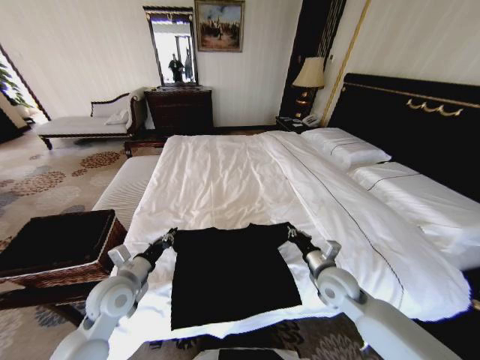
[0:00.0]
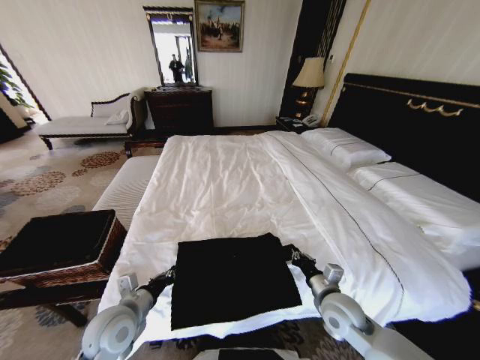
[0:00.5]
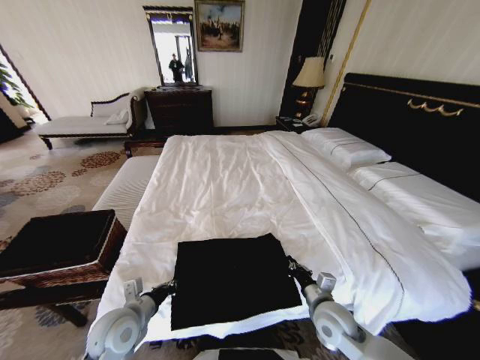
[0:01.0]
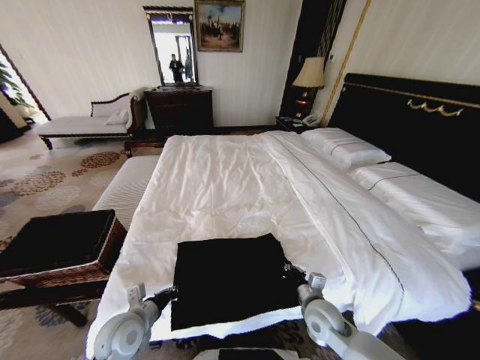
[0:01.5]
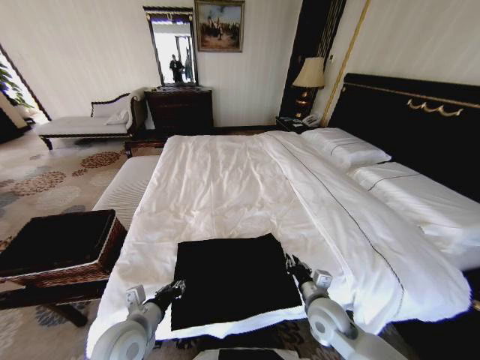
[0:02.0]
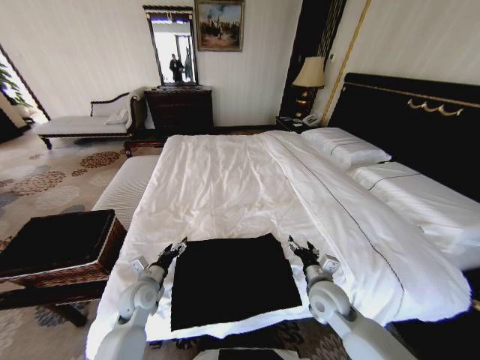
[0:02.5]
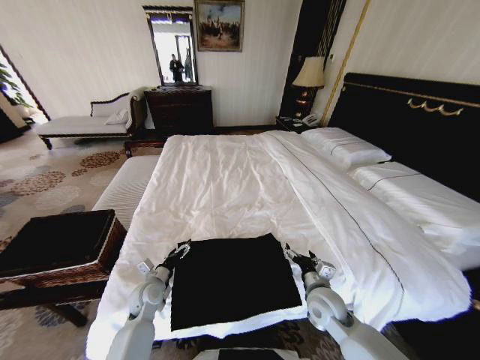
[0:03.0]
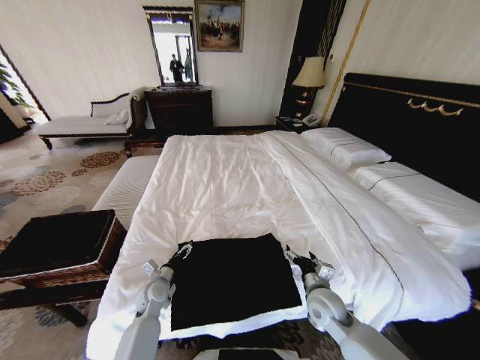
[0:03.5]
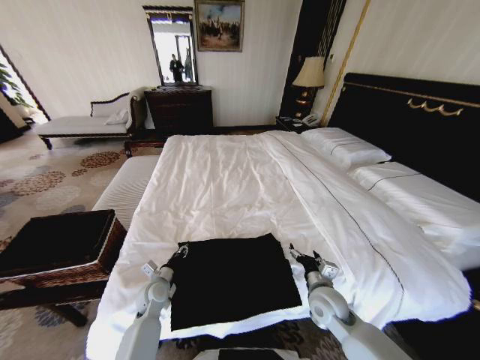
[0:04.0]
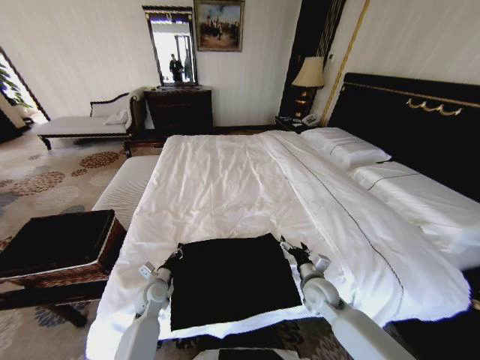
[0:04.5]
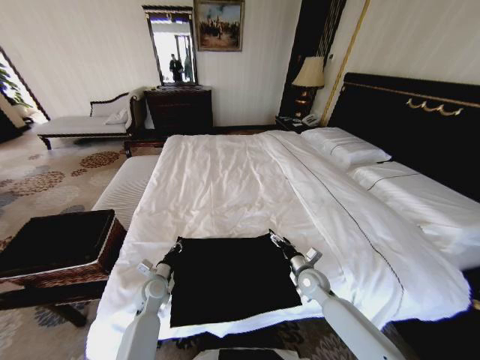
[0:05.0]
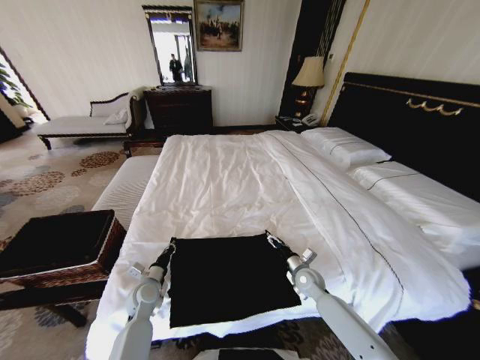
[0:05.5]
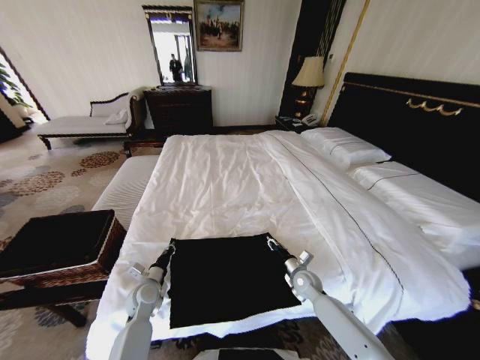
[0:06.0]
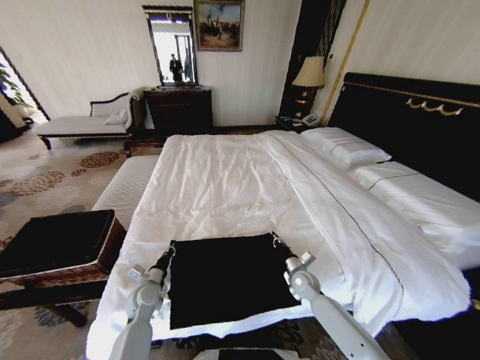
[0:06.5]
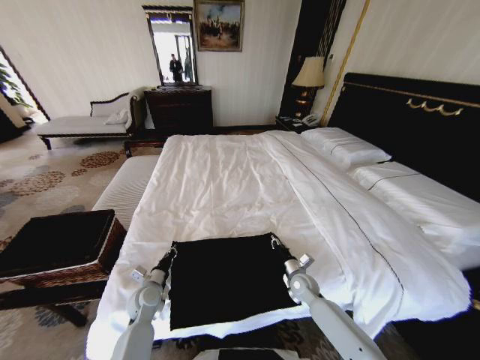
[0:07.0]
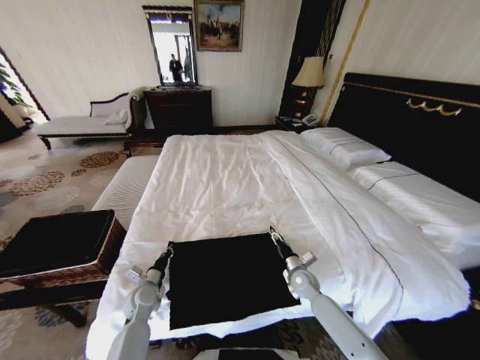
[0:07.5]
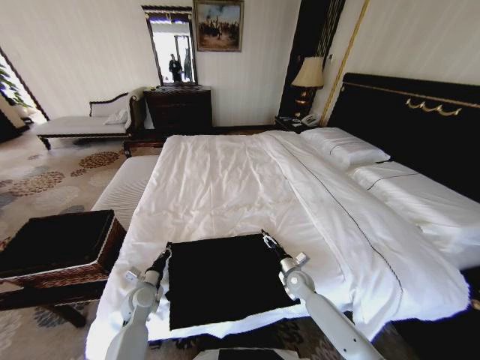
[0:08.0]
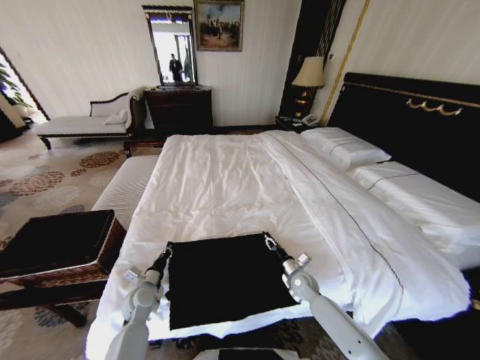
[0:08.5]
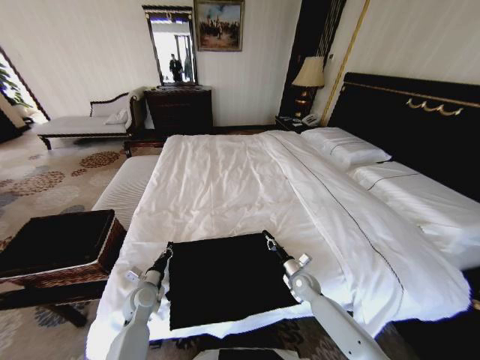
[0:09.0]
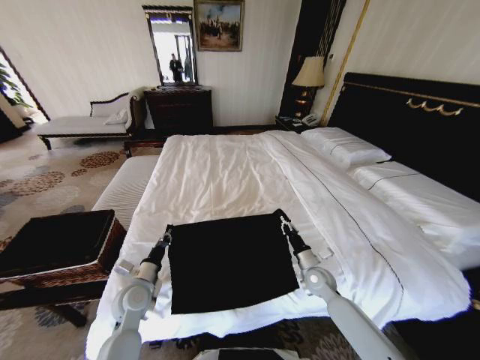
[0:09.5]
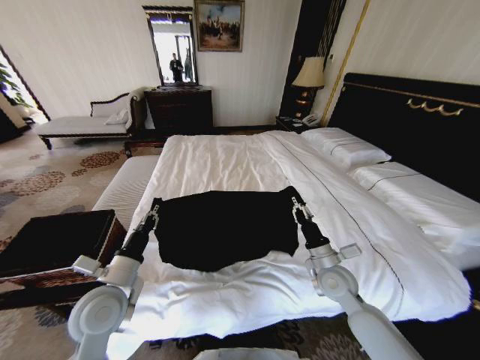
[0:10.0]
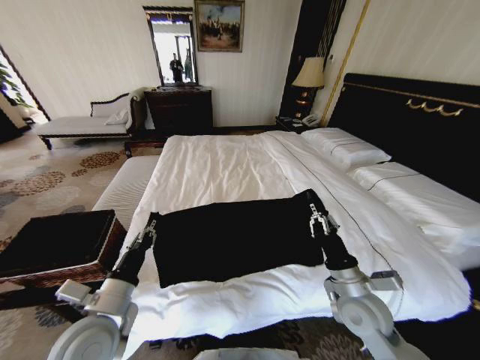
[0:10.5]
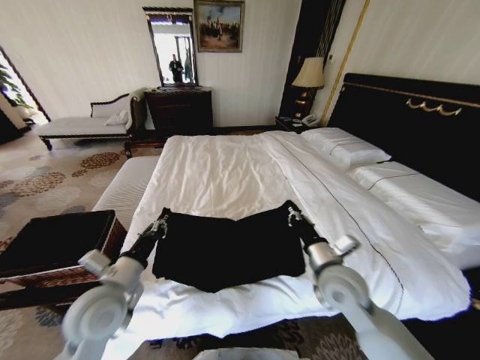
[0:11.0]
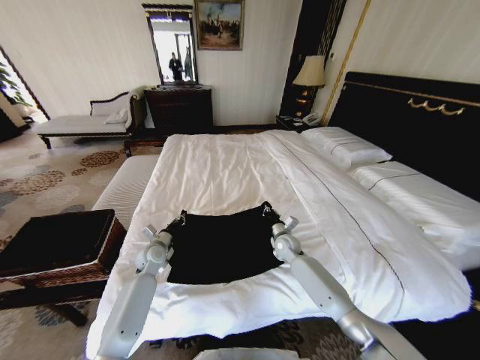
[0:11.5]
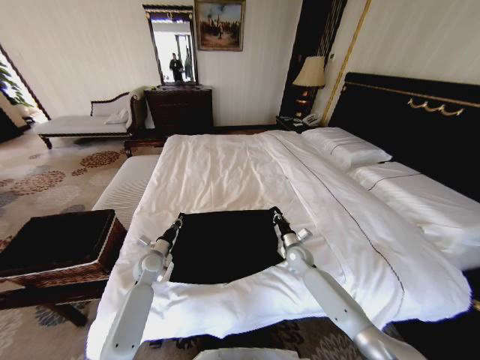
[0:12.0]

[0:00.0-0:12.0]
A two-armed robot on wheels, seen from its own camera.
Task of the whole recording: Fold the clothes on the bed and place them into the basket.
0:00.0 to 0:02.0: The right gripper goes approximately 10 cm backward and downward; the left gripper goes some 10 cm backward.
0:02.0 to 0:04.0: The left gripper goes roughly 20 cm forward and downward, and opens, then closes again. Meanwhile the right gripper opens its fingers.
0:04.0 to 0:06.0: The right gripper moves downward and forward, about 15 cm, and closes, while the left gripper closes its fingers.
0:06.0 to 0:08.0: The right gripper opens its fingers.
0:08.0 to 0:10.0: The grippers both shift upward by approximately 20 cm. The right gripper closes up.
0:10.0 to 0:12.0: Both grippers travel together forward and downward, some 20 cm.

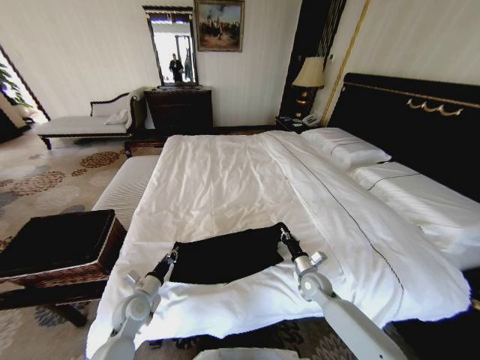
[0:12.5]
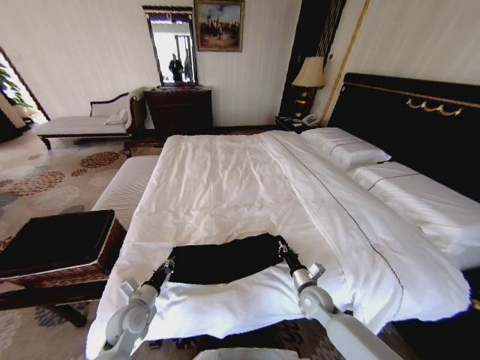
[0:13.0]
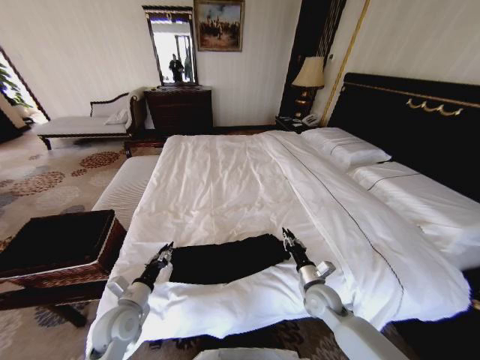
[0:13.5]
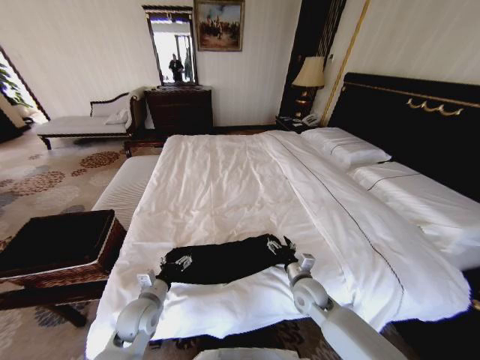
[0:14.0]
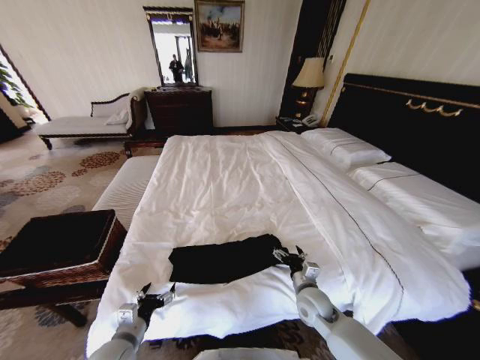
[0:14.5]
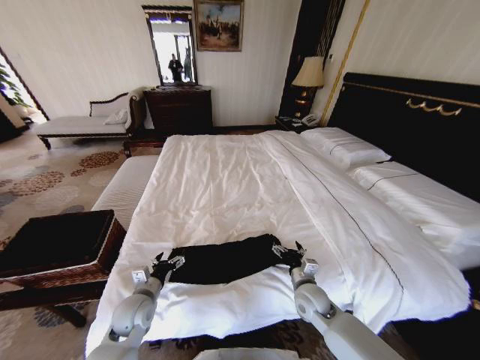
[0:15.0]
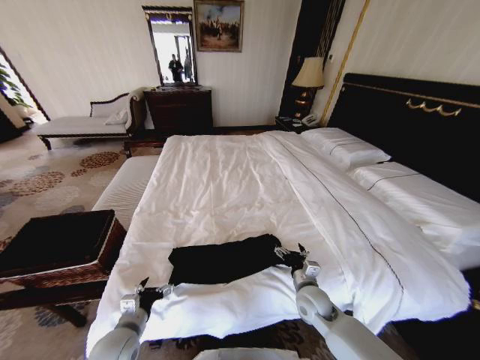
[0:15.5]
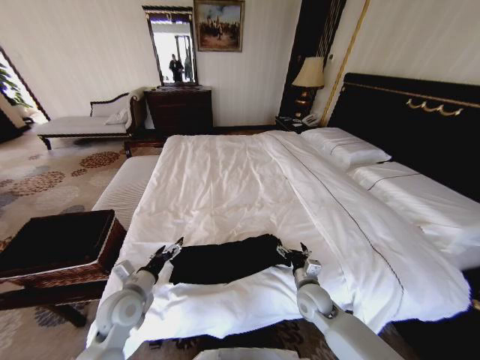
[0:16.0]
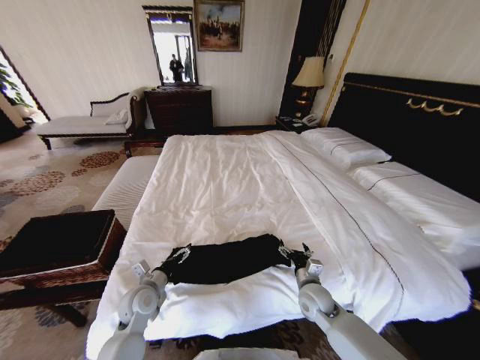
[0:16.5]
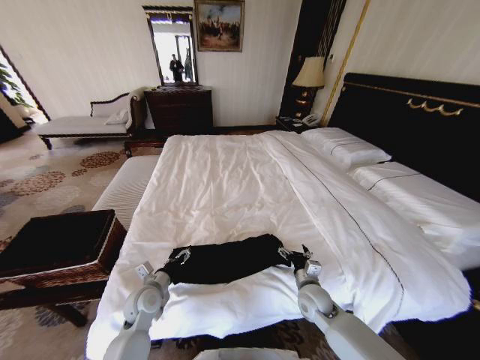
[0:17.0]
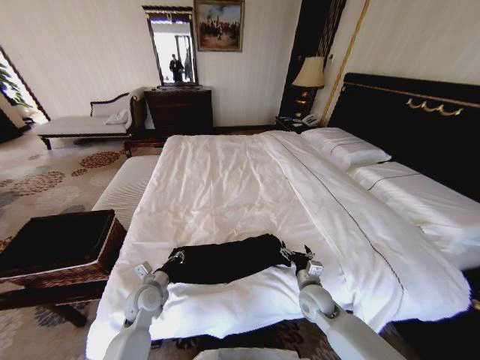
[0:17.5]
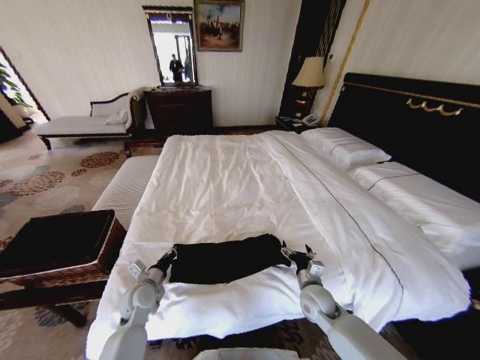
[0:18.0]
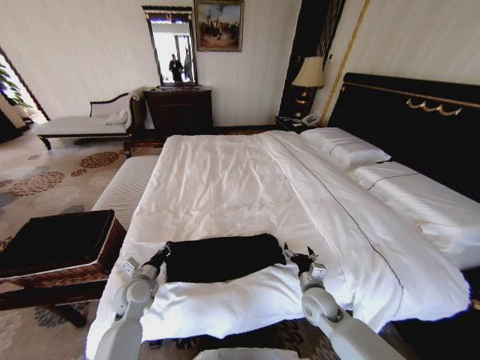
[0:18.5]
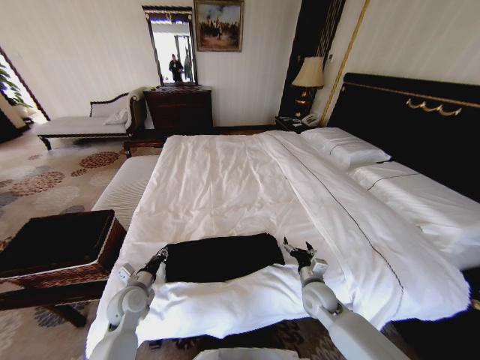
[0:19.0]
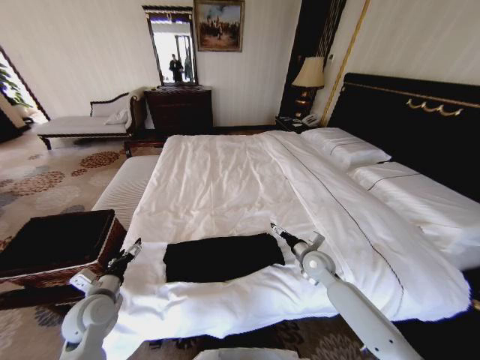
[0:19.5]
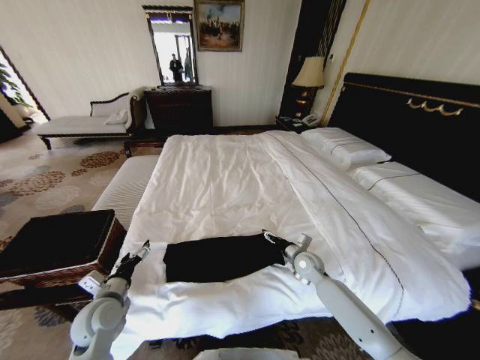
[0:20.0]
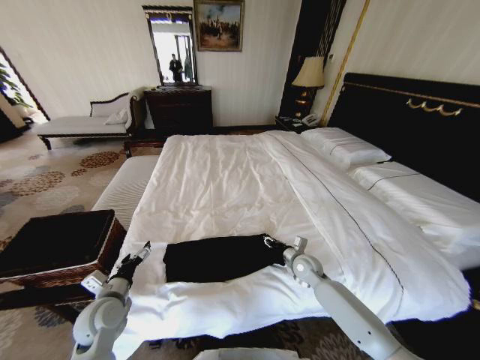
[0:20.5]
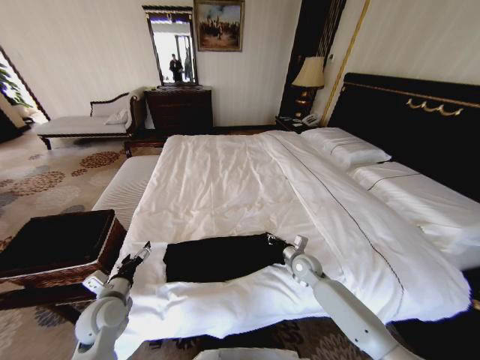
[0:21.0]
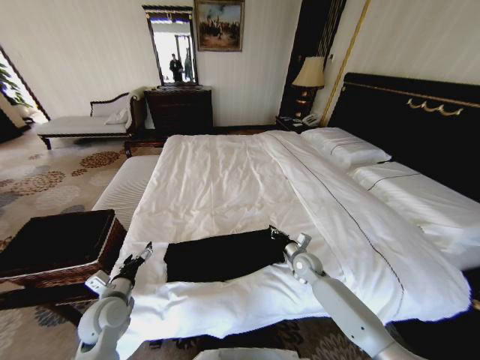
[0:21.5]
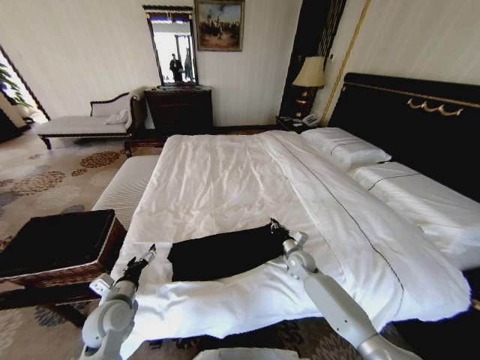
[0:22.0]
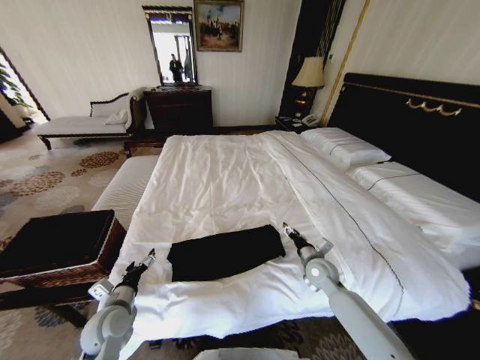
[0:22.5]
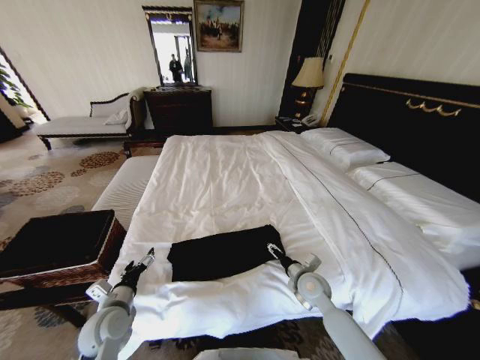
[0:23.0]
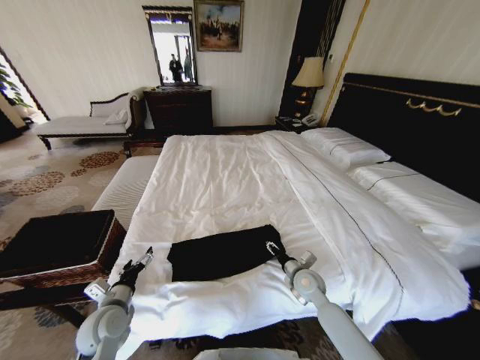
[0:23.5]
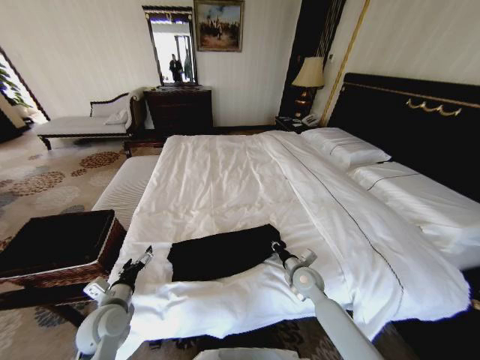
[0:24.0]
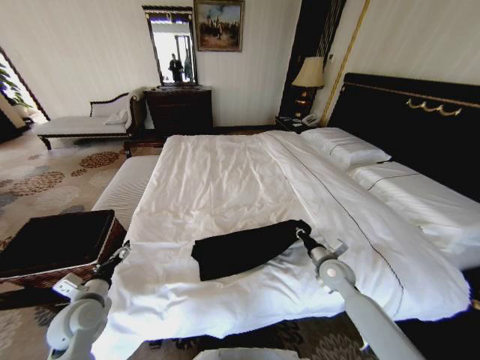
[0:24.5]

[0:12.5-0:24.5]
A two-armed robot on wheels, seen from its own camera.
Task of the whole recording: Fold the clothes on the bed and place them into the basket.
0:12.5 to 0:14.5: The right gripper shifts approximately 10 cm backward and to the left, and opens up. Meanwhile the left gripper travels backward by some 10 cm, and opens its fingers.
0:14.5 to 0:16.5: The left gripper swings forward and backward, approximately 10 cm each way, with 2 reversals.
0:16.5 to 0:18.5: The left gripper closes.
0:18.5 to 0:20.5: The left gripper moves backward, approximately 5 cm, and opens up; the right gripper travels forward by roughly 10 cm, and closes up.
0:20.5 to 0:22.5: The right gripper ends up some 5 cm from where it was, and closes and opens again.
0:22.5 to 0:24.5: The right gripper closes. Meanwhile the left gripper travels to the left by roughly 5 cm.

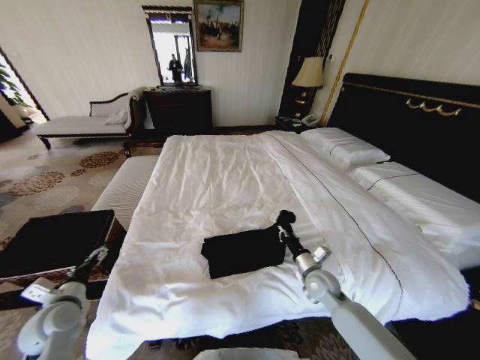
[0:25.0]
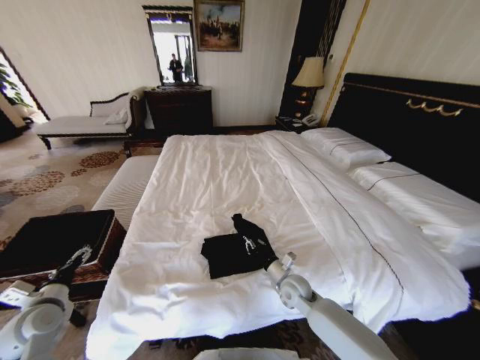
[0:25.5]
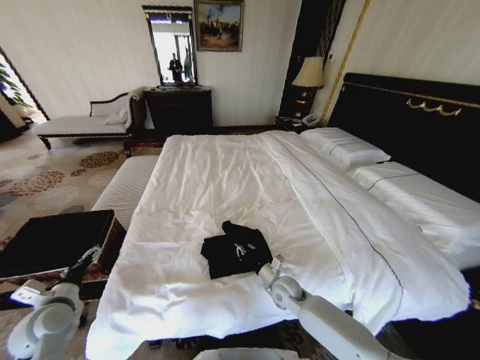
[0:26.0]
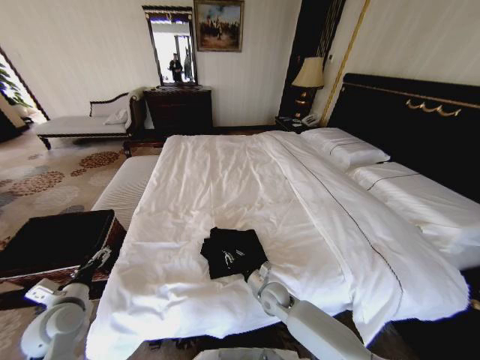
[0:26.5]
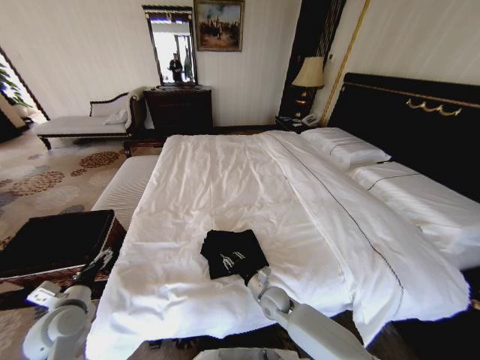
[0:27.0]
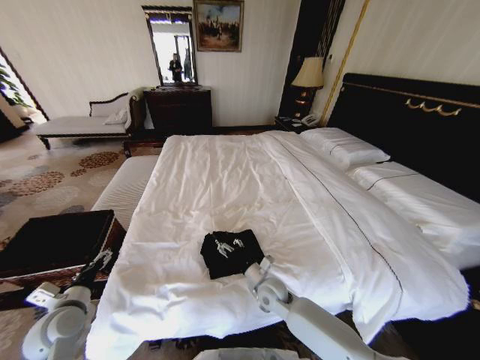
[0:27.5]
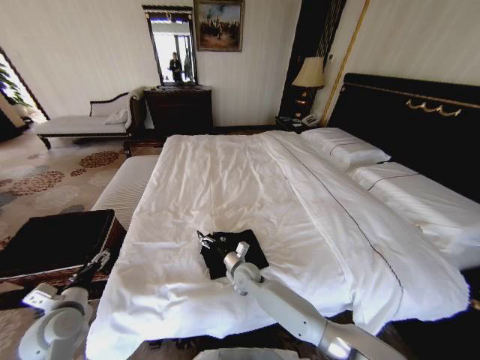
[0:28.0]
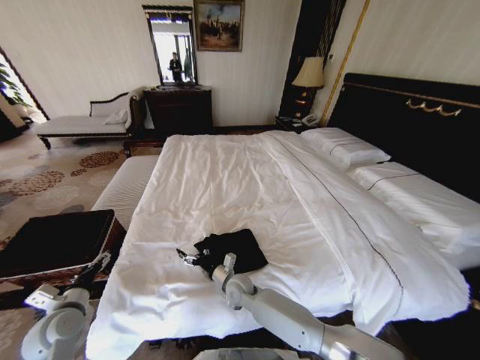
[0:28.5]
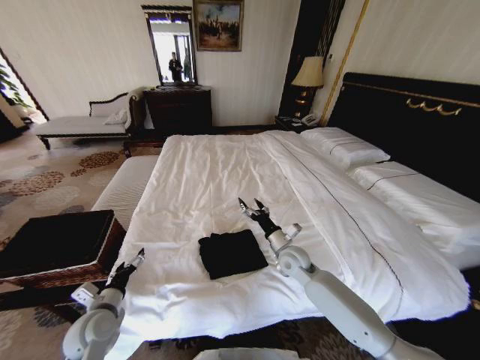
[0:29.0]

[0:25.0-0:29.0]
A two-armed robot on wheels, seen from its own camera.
Task of the whole recording: Fold the clothes on the bed and place them into the basket.
0:25.0 to 0:27.0: The right gripper goes some 15 cm to the left and downward.
0:27.0 to 0:29.0: The left gripper goes about 5 cm to the right; the right gripper shifts about 15 cm upward and forward, goes to the left and returns, approximately 10 cm each way, and opens.
